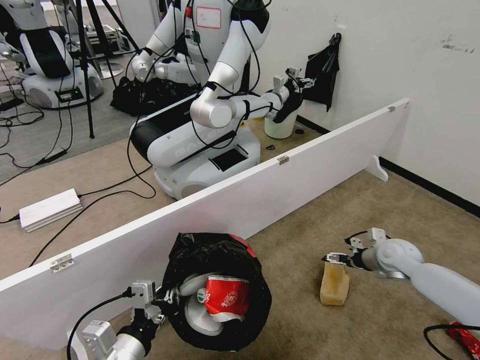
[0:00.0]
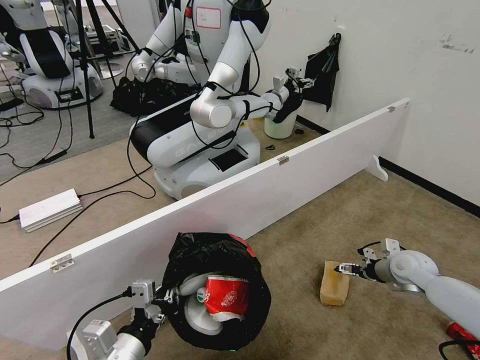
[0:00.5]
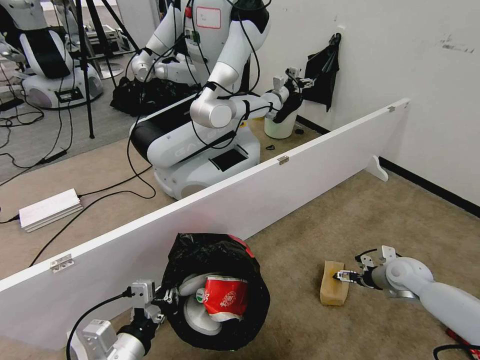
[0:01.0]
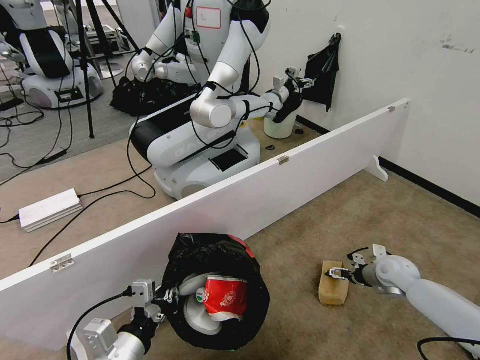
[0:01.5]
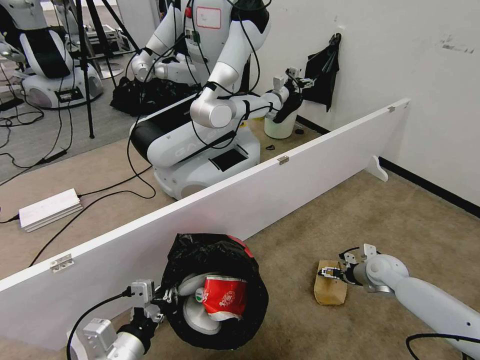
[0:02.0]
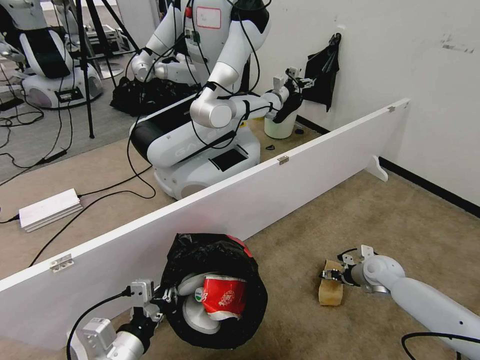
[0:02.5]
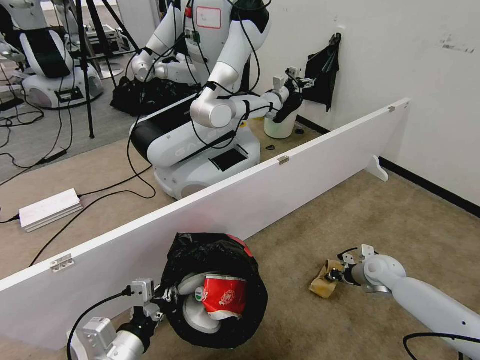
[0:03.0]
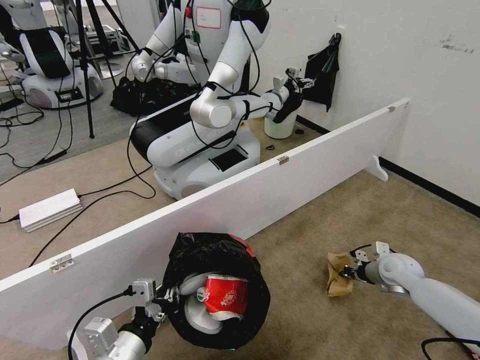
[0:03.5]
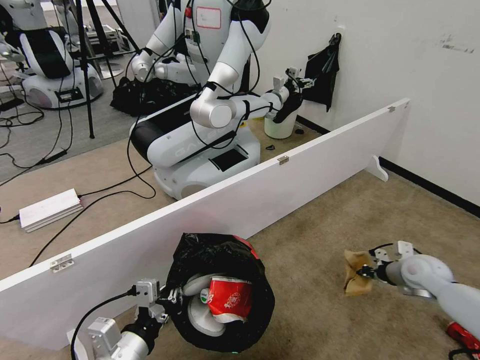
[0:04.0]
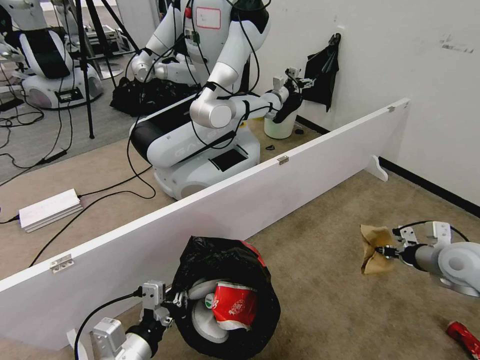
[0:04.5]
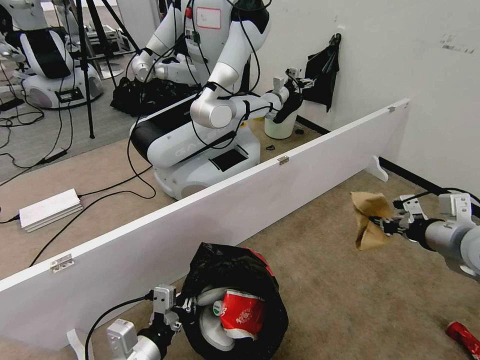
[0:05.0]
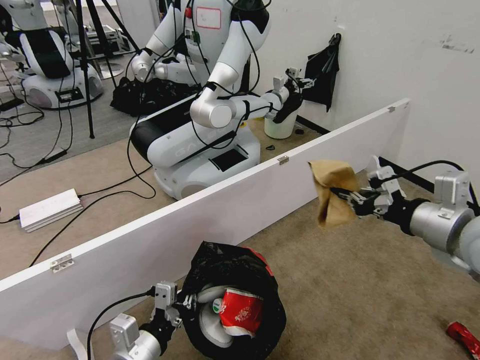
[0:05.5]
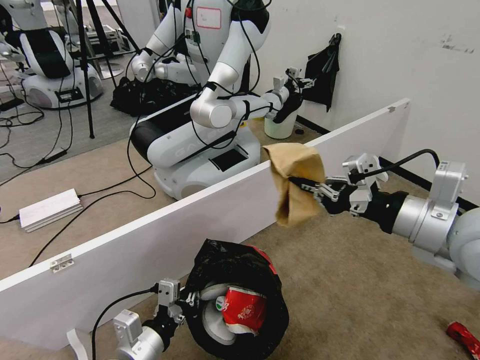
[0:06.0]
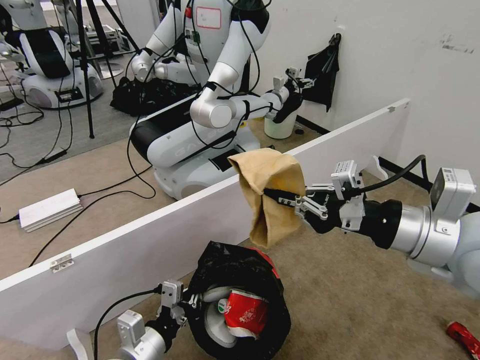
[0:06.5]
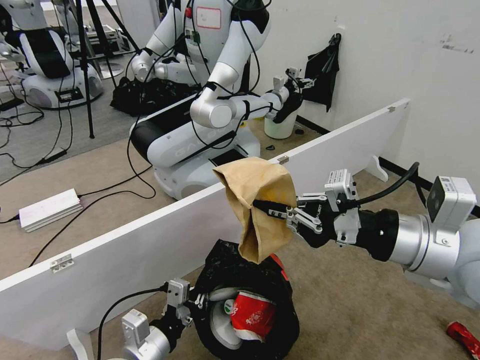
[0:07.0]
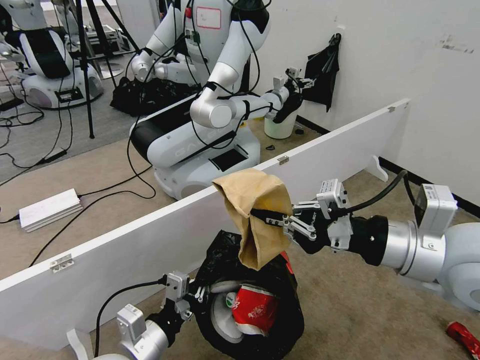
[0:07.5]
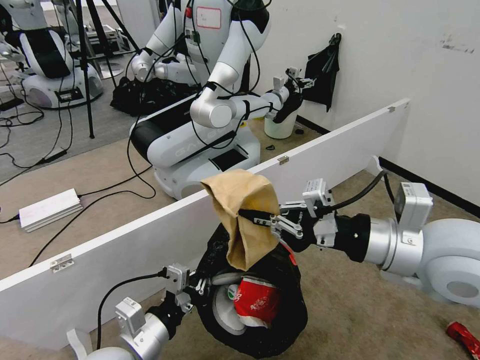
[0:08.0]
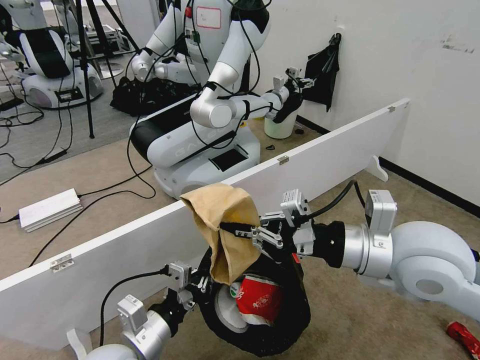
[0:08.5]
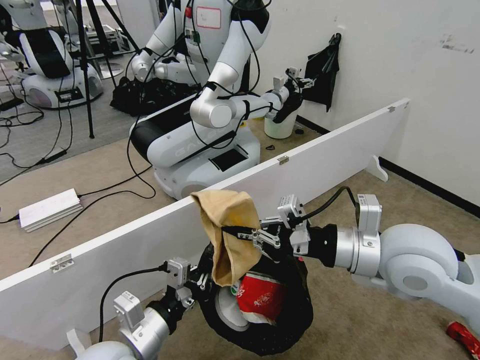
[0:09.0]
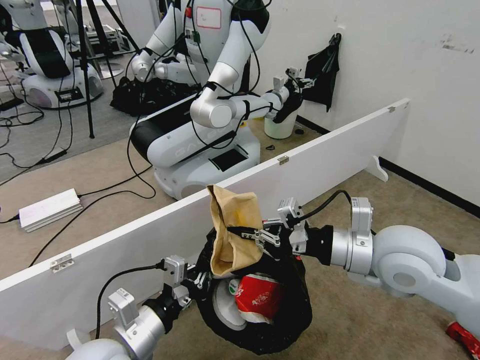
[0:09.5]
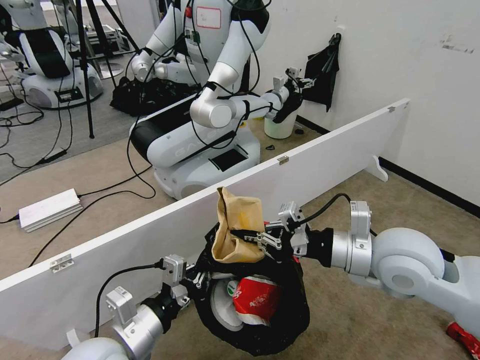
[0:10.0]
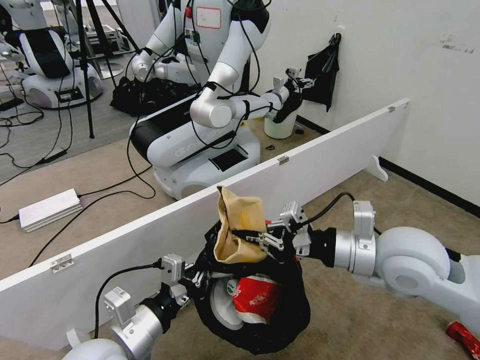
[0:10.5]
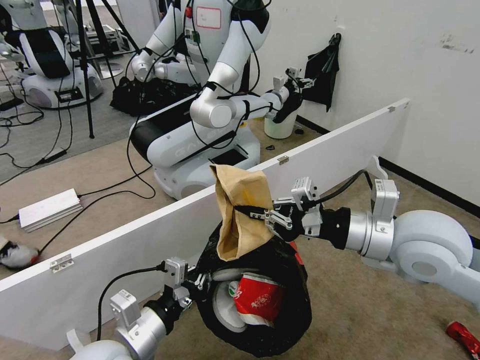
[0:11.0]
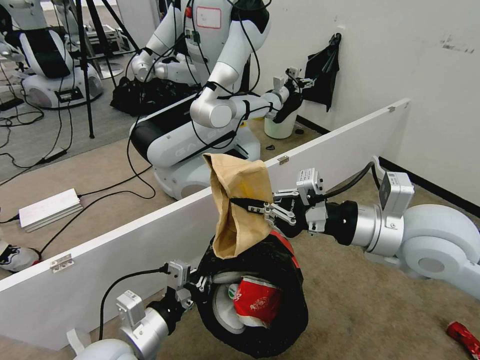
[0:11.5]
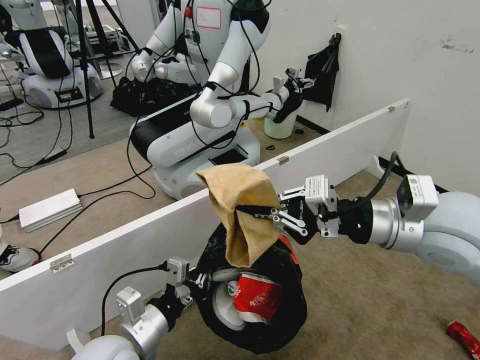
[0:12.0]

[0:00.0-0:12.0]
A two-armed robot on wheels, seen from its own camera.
Task of the whole recording: Pick up the trash bin, then pick up the garbage from the floor and place it into the trash bin.
0:00.0 to 0:02.0: The right gripper travels downward by roughly 5 cm.
0:02.0 to 0:04.0: The right gripper heads upward and to the right, covering roughly 10 cm, and closes its fingers.
0:04.0 to 0:06.0: The right gripper heads upward and to the left, covering roughly 35 cm.
0:08.0 to 0:10.0: The right gripper travels downward by about 5 cm.
0:10.0 to 0:12.0: The right gripper goes approximately 10 cm upward.

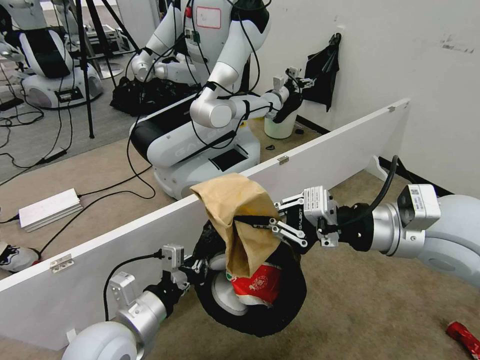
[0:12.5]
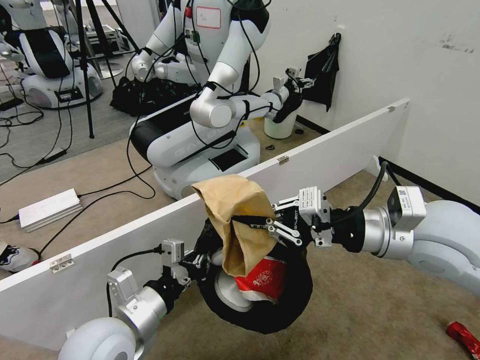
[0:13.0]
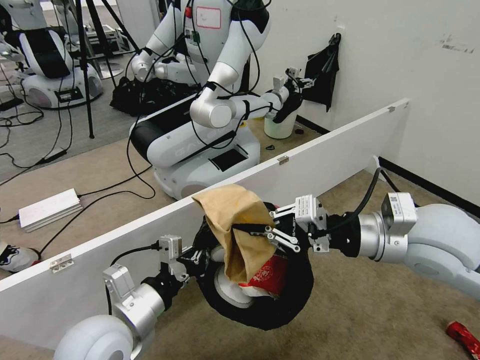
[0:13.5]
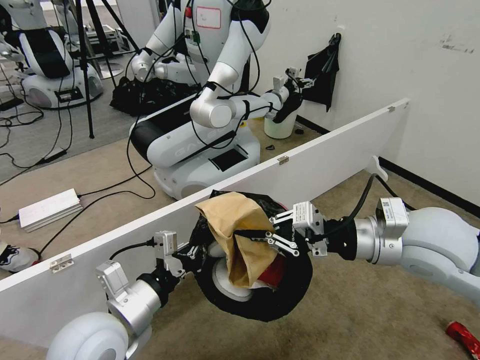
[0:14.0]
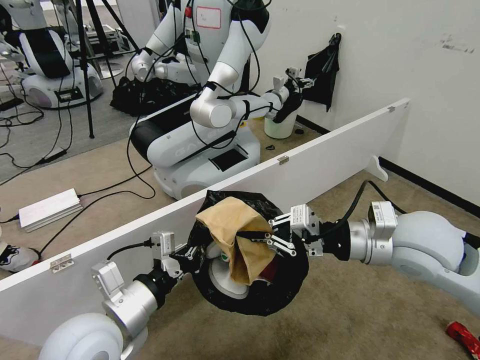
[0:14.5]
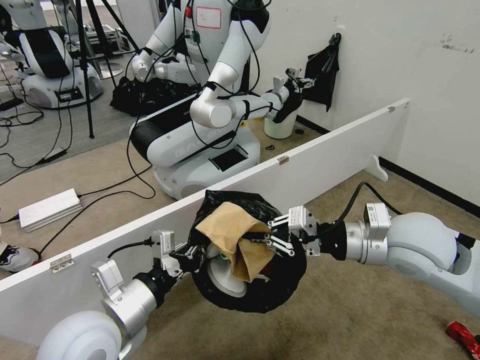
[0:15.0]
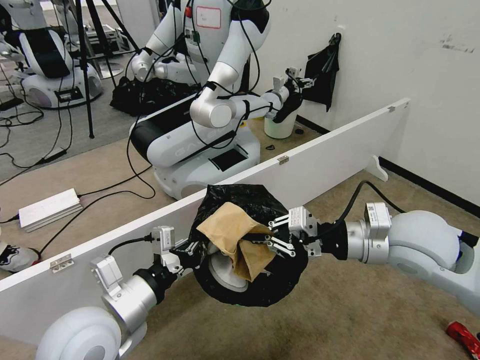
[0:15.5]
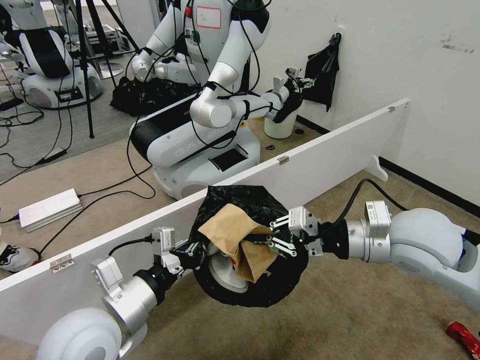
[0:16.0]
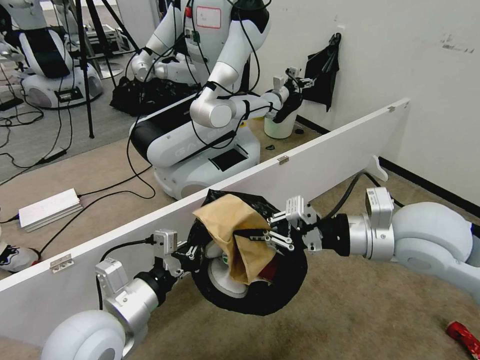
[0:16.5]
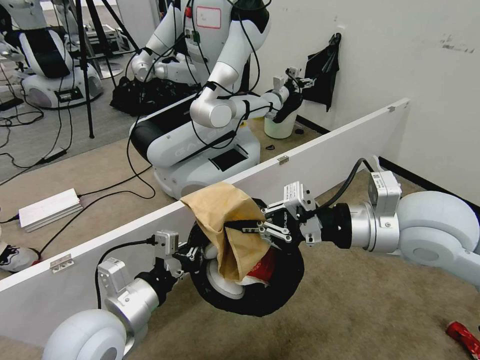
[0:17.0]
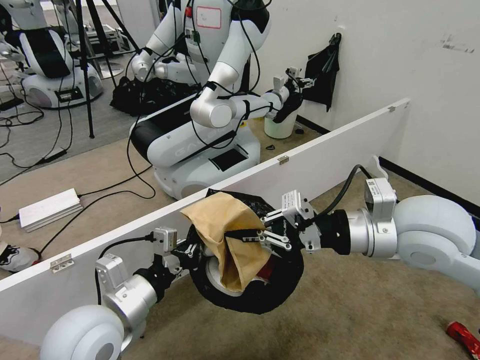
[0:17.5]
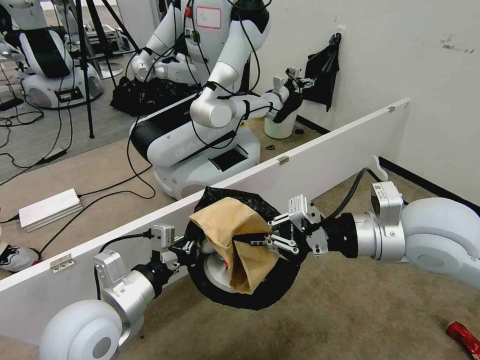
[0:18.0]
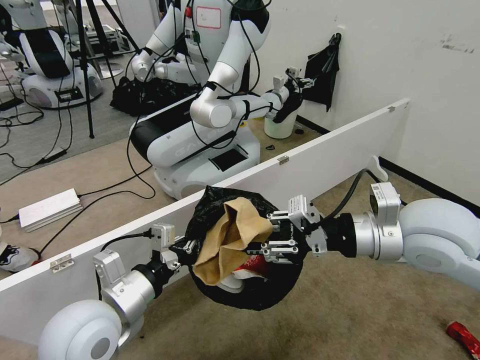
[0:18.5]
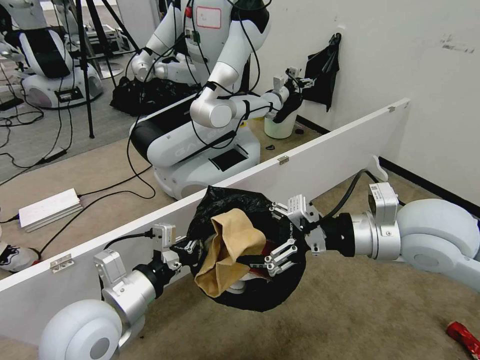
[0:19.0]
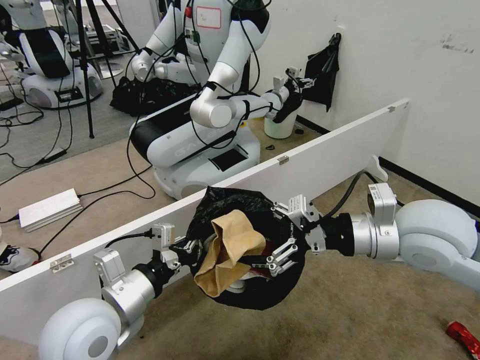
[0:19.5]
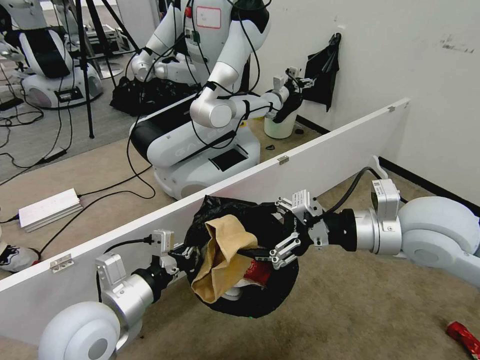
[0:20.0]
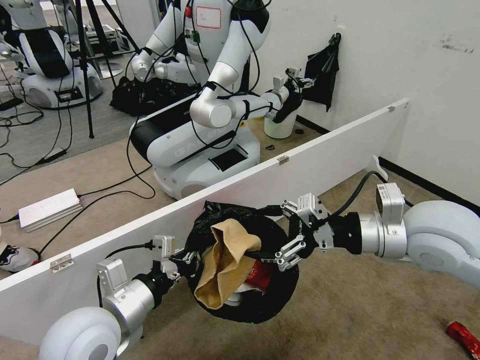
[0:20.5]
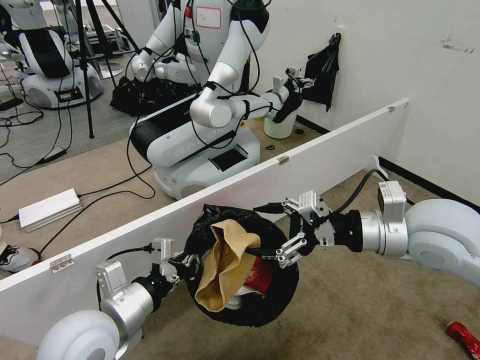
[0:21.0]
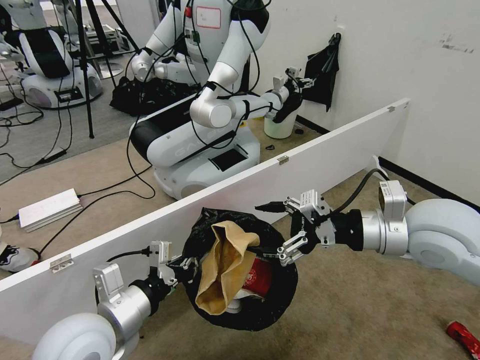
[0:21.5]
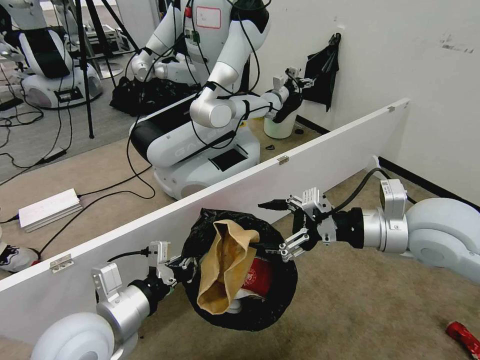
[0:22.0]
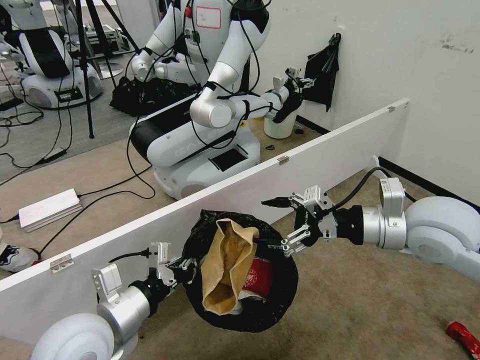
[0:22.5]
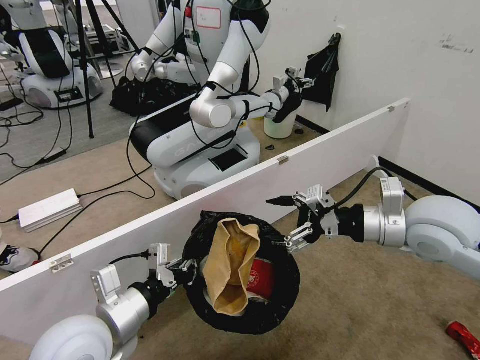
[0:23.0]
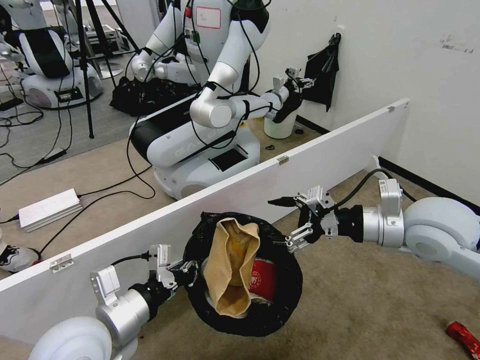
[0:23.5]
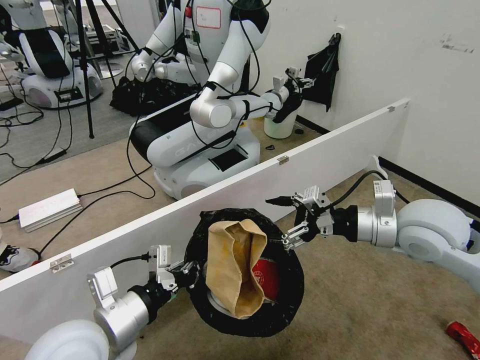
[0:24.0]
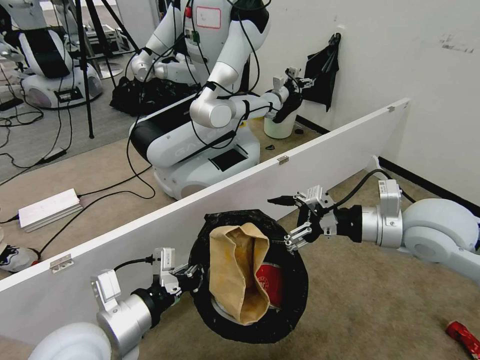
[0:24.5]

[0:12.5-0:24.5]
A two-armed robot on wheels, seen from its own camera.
Task of the whole recording: Pick up the trash bin, then pick up the garbage from the floor and place it into the trash bin.
0:12.5 to 0:14.5: The right gripper moves downward, about 5 cm.
0:14.5 to 0:16.5: The grippers make only small movements.
0:16.5 to 0:18.5: The right gripper opens.
0:18.5 to 0:20.5: The right gripper opens up.
0:20.5 to 0:24.5: The grippers move only a little.

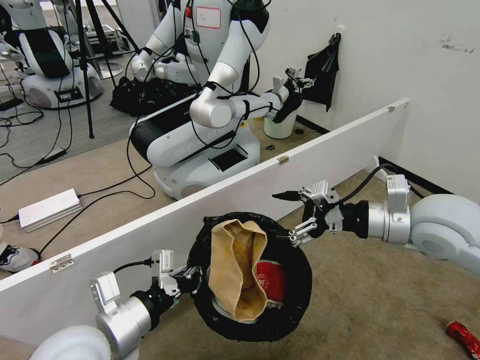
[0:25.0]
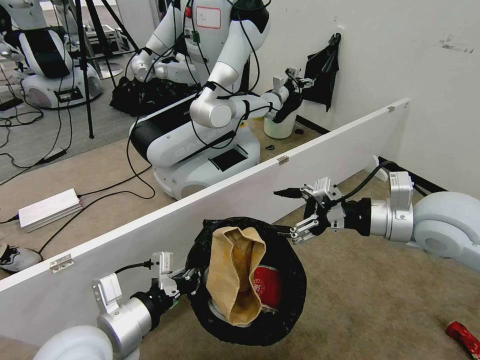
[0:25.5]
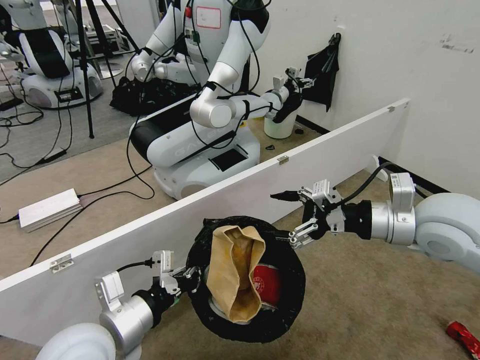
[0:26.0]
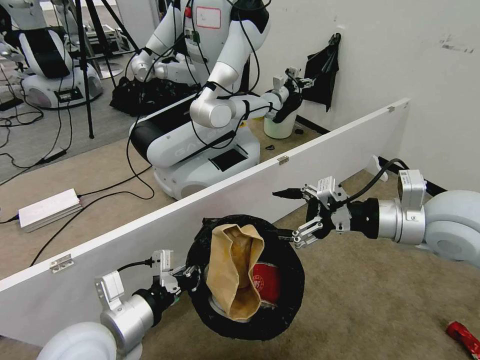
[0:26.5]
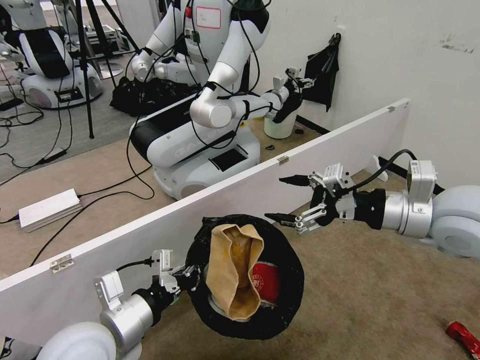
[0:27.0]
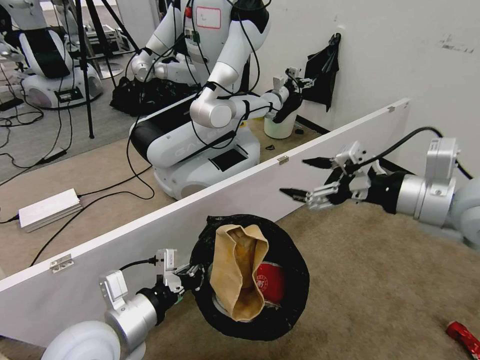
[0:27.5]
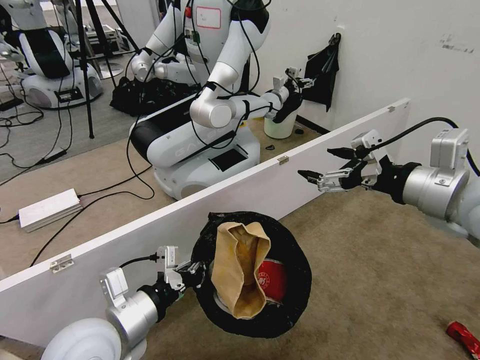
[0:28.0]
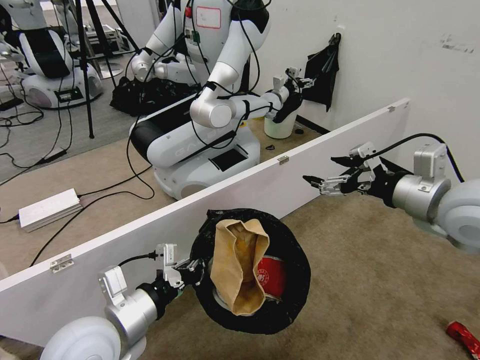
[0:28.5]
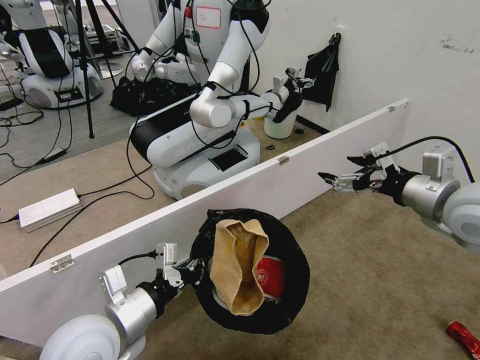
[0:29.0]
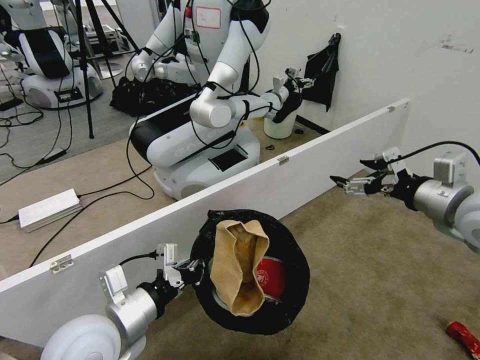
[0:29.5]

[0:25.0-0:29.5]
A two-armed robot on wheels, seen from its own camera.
Task of the whole recording: Pick up the trash bin, then pick up the garbage from the floor and place it into the trash bin.
0:25.0 to 0:27.0: There are only small adjustments of the grippers.
0:27.0 to 0:29.5: The right gripper travels to the right by roughly 5 cm.
